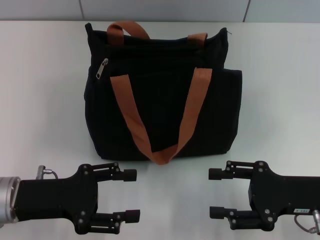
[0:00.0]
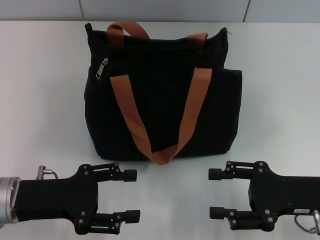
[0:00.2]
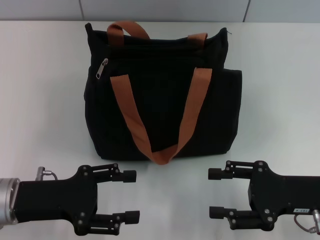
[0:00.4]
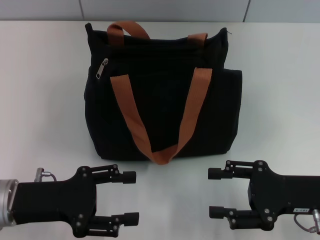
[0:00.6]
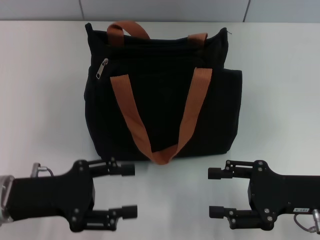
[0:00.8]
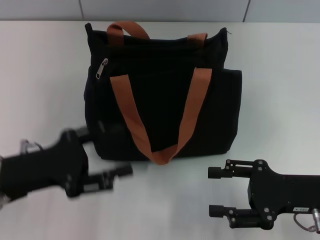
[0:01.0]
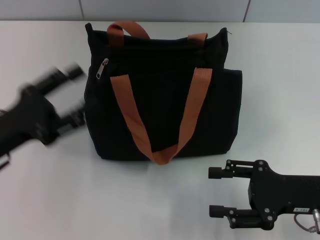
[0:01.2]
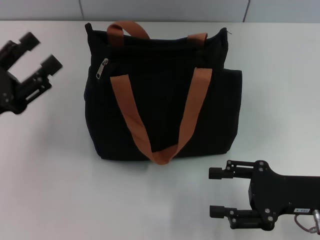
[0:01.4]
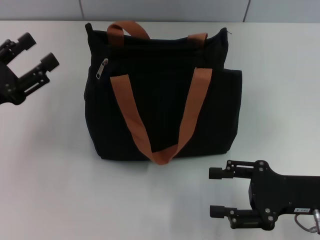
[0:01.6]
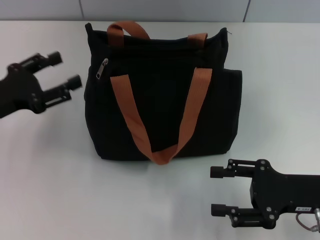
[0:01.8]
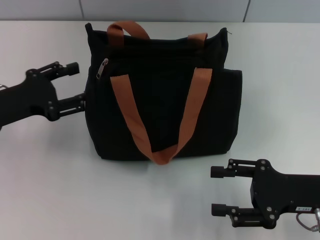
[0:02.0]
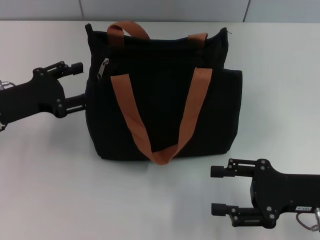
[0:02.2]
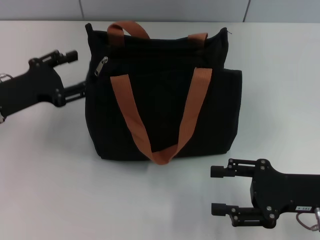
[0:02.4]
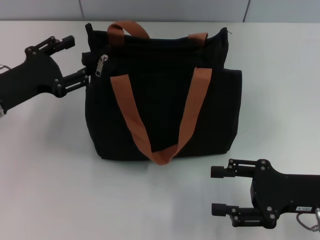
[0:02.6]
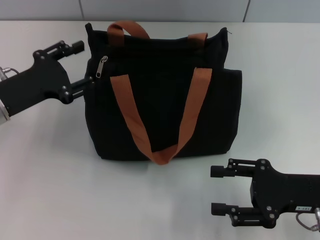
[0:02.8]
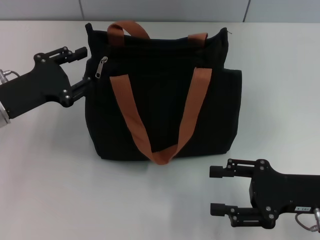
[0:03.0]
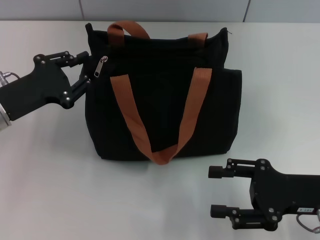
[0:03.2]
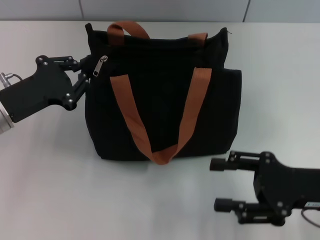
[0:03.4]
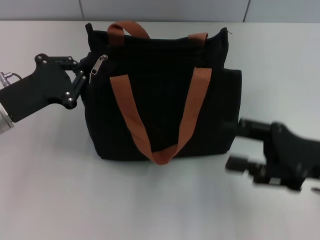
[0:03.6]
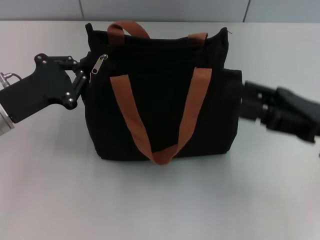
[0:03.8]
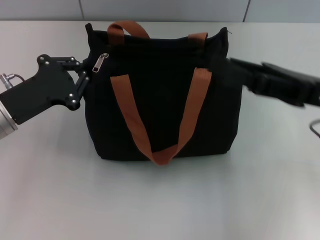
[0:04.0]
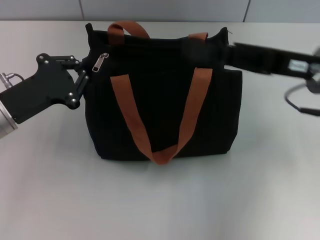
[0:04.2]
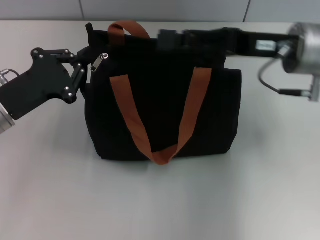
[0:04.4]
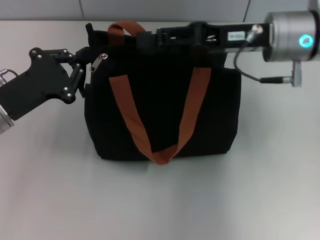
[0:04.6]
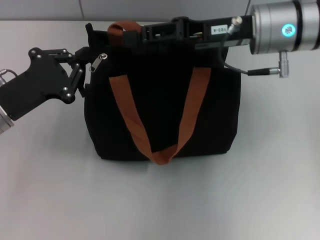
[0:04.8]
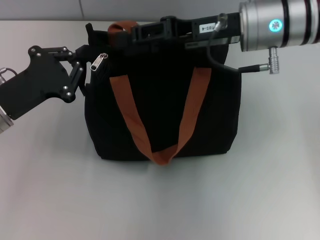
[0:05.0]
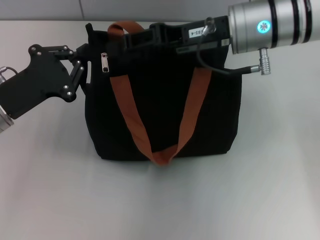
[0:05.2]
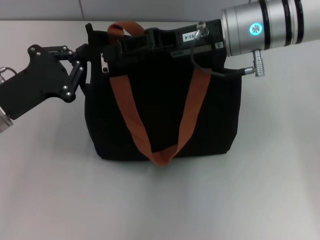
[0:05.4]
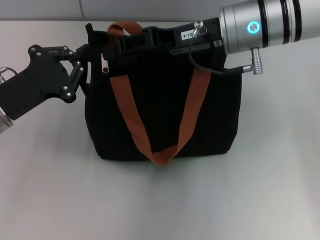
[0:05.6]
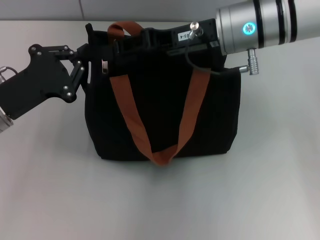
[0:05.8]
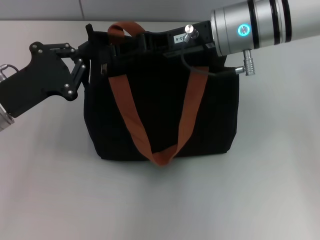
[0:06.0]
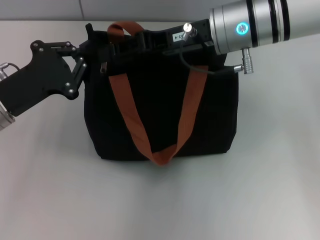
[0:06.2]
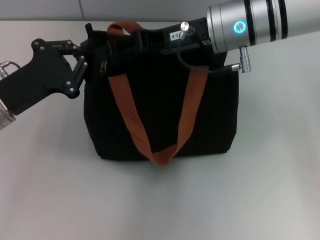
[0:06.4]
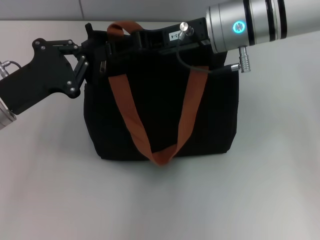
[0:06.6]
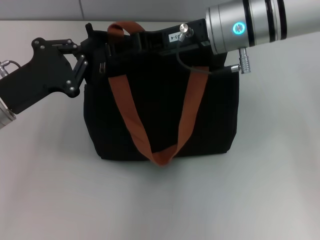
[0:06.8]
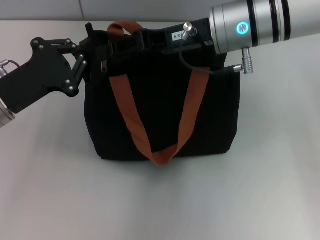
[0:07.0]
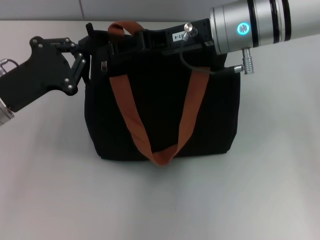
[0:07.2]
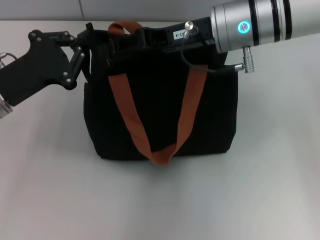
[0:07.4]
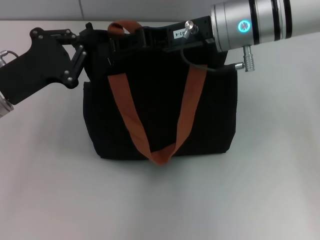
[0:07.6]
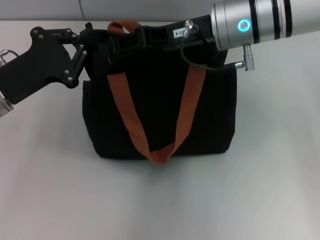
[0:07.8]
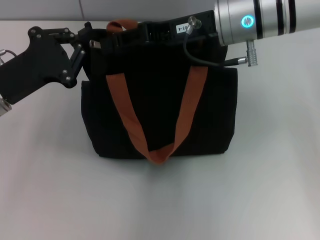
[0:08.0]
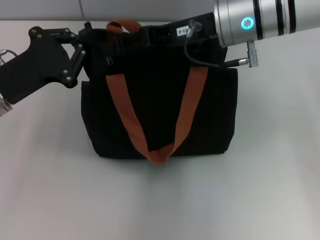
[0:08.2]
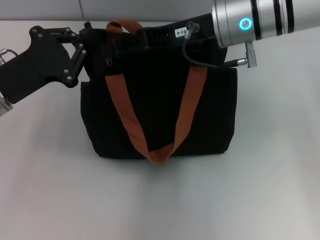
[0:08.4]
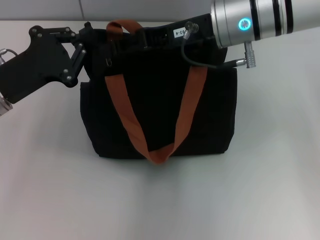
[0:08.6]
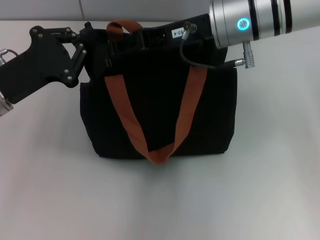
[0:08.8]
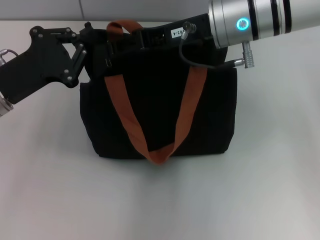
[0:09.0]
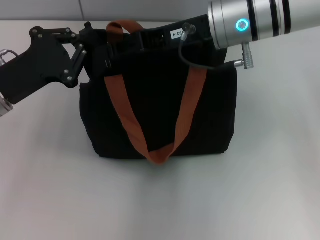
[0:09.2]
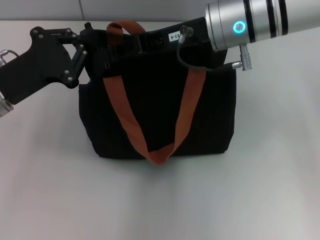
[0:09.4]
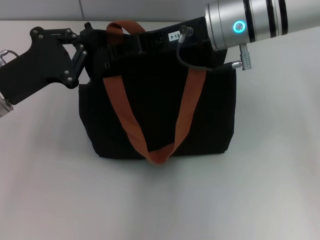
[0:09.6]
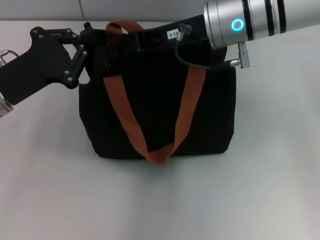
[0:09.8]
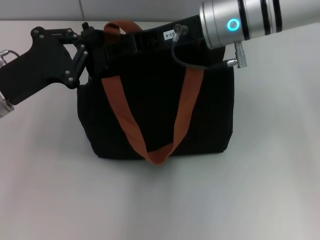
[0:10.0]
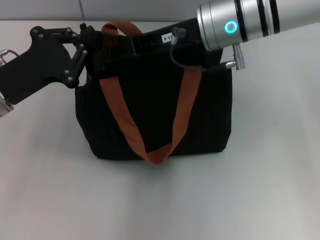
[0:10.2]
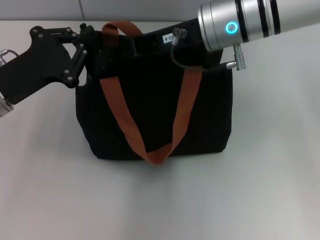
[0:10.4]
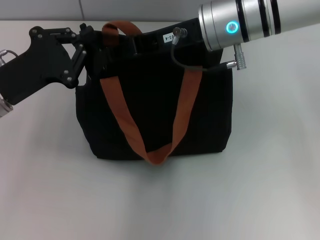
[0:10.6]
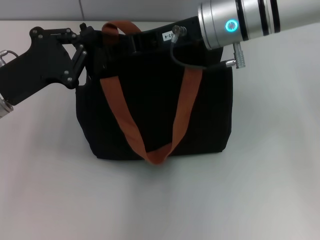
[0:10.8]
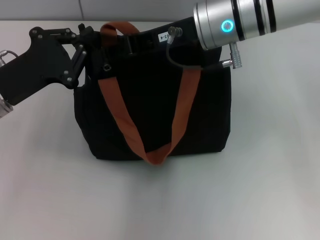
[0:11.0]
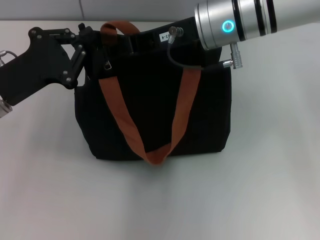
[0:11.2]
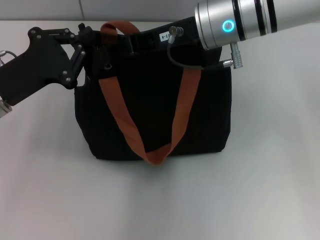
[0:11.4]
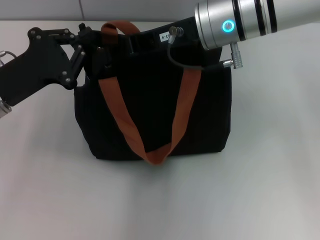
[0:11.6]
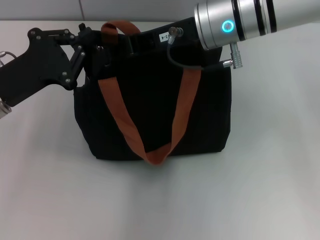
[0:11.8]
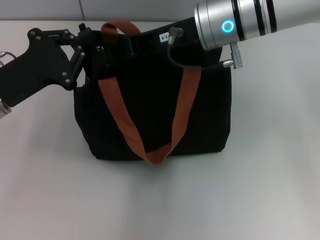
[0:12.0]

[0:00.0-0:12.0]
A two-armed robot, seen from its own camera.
0:00.0 to 0:01.6: The left gripper shifts roughly 5 cm to the left.
0:01.6 to 0:03.0: The left gripper ends up some 5 cm from where it was.
0:03.0 to 0:04.4: The right gripper heads forward, upward and to the left, covering about 20 cm. Meanwhile the left gripper closes its fingers.
0:04.4 to 0:06.0: The right gripper goes some 10 cm to the left.
0:06.0 to 0:09.0: The grippers stay close to where they were, moving slightly.
0:09.0 to 0:10.4: Both grippers stay about where they are.
0:10.4 to 0:12.0: The two grippers keep their place.

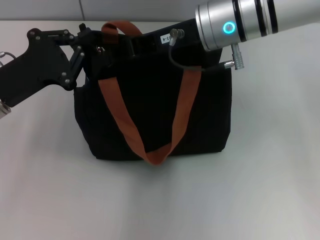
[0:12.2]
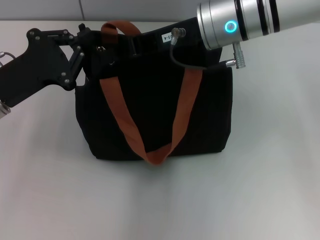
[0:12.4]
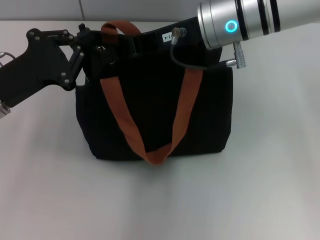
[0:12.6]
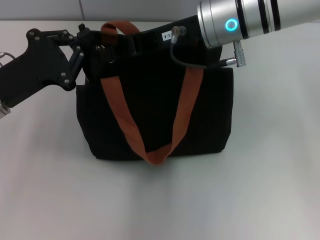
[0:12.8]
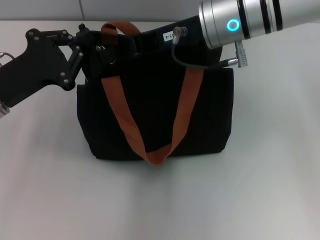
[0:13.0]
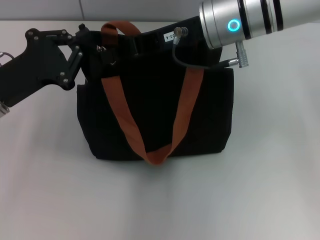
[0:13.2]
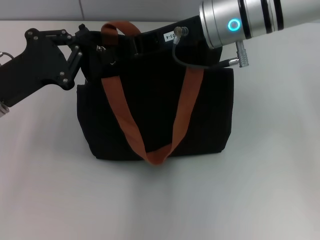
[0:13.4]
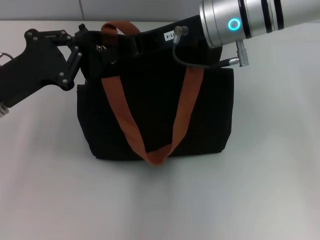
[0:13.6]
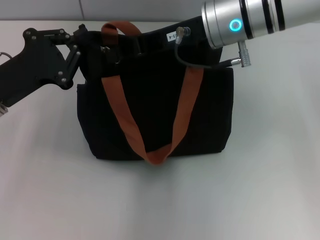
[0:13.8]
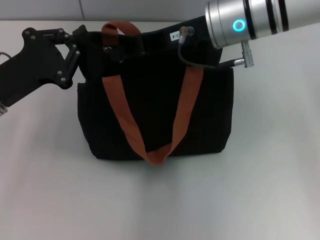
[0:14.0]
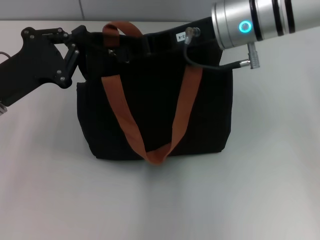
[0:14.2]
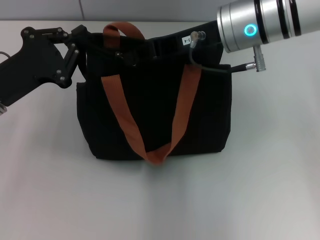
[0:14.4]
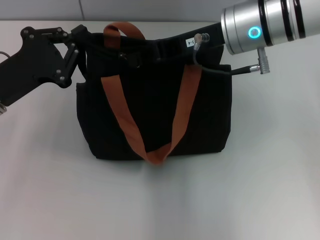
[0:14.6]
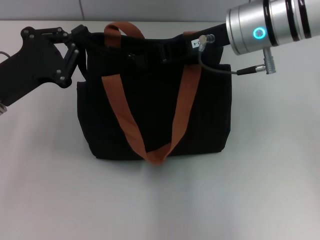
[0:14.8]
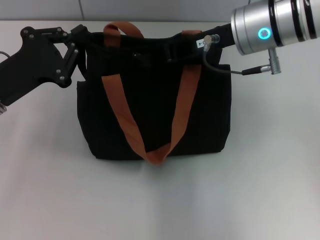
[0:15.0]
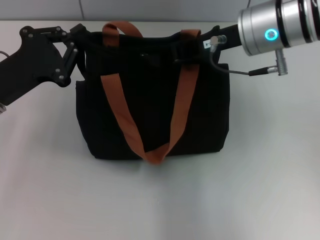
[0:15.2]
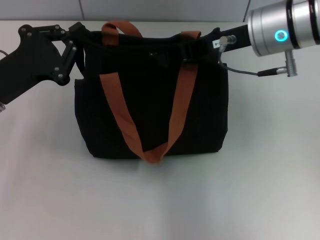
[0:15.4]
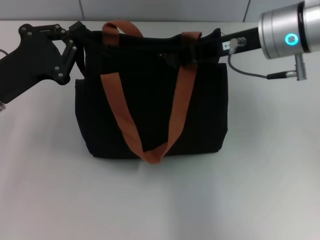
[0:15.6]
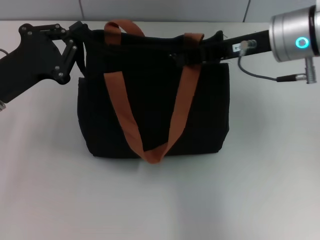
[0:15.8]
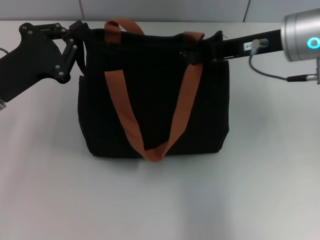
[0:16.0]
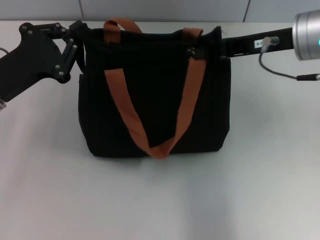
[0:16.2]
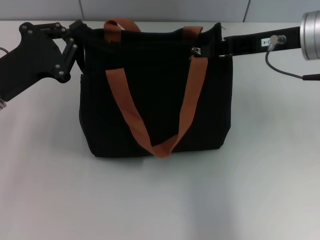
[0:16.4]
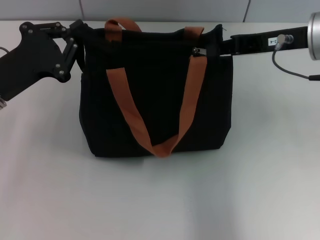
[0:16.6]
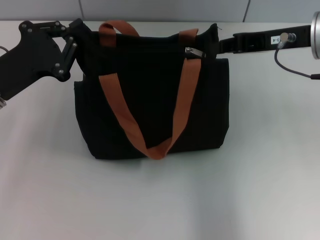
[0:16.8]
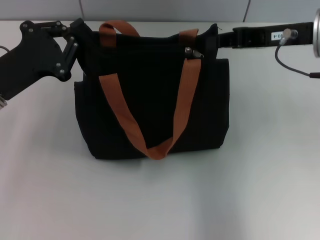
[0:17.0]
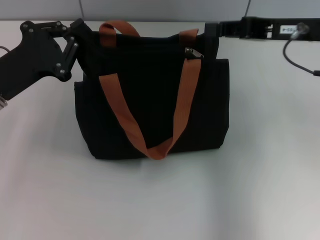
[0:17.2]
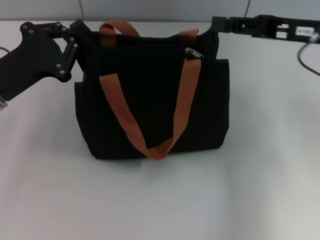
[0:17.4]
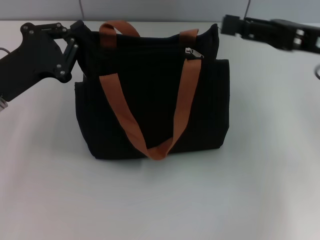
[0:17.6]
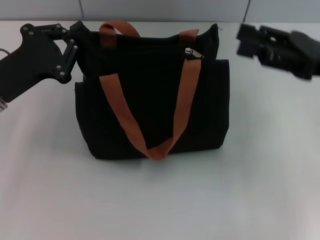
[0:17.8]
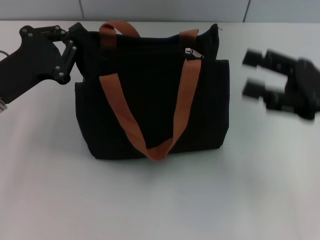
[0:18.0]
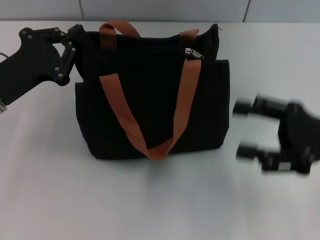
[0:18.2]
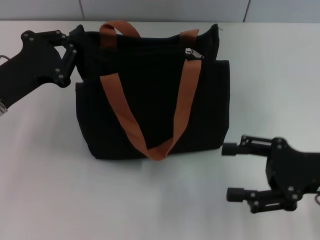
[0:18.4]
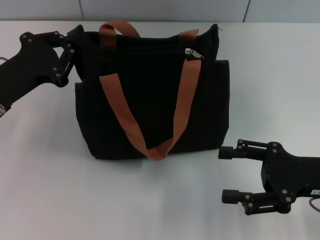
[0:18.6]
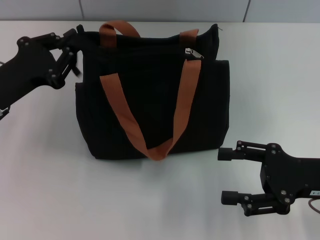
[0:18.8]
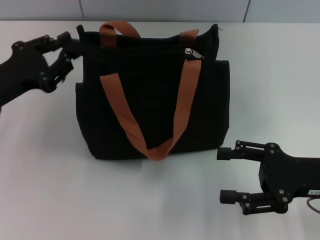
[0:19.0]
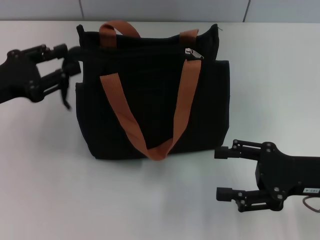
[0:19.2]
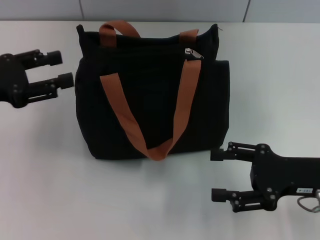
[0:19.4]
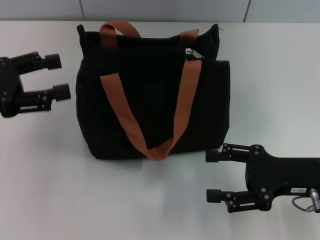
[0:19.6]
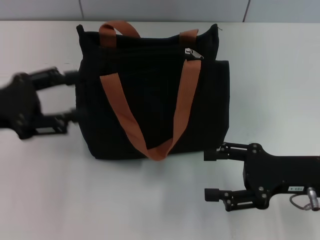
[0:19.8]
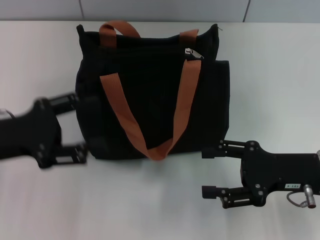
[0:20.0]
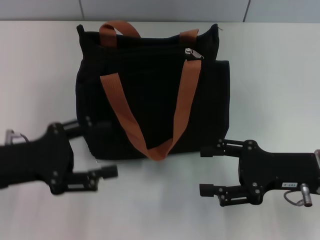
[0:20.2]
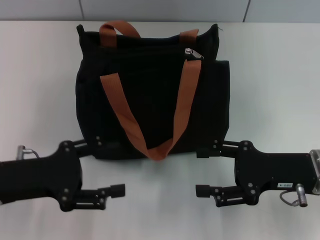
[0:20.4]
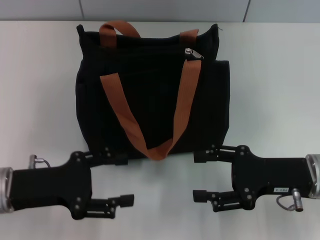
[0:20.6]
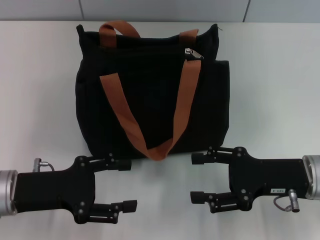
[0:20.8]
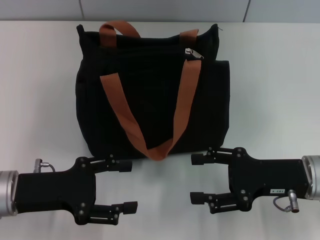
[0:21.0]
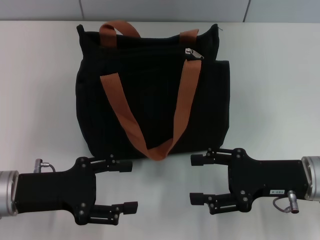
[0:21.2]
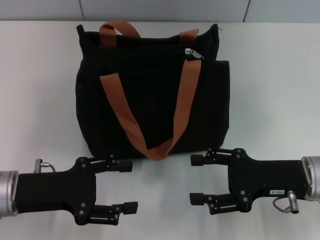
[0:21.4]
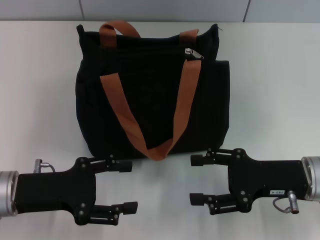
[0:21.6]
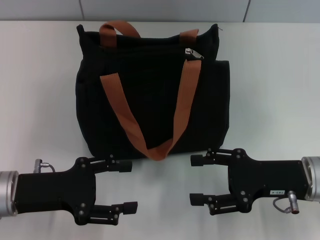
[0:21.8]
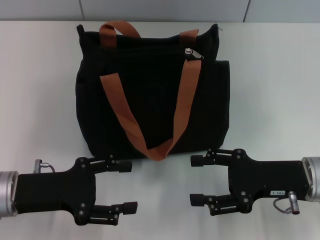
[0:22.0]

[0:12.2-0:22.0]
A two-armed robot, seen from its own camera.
Step, 0:12.2 to 0:16.8: Pull up the zipper with your right hand.
Step, 0:17.0 to 0:19.2: Grab the zipper with your left hand.
0:12.2 to 0:13.6: Neither gripper changes place.
0:13.6 to 0:15.0: The grippers stay close to where they were, moving slightly.
0:15.0 to 0:16.4: The right gripper is displaced to the right by about 10 cm.
0:16.4 to 0:17.8: The right gripper moves to the right and backward, approximately 10 cm, and opens its fingers.
0:17.8 to 0:19.2: The right gripper goes roughly 10 cm downward and backward.
0:19.2 to 0:20.6: The left gripper travels backward, downward and to the right by roughly 10 cm, and opens its fingers.
0:20.6 to 0:22.0: Both grippers stay about where they are.
